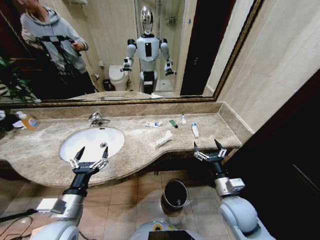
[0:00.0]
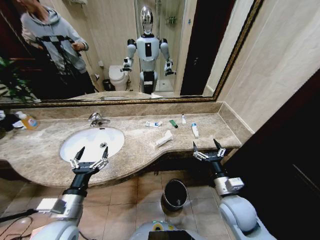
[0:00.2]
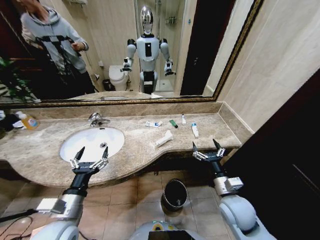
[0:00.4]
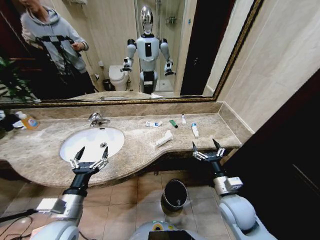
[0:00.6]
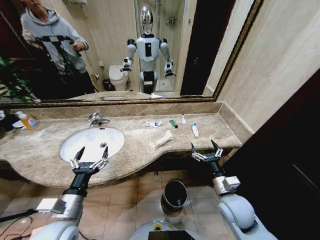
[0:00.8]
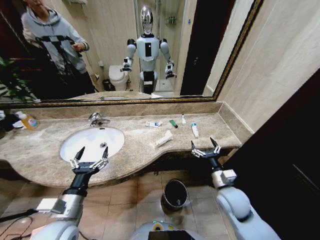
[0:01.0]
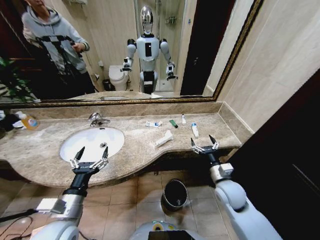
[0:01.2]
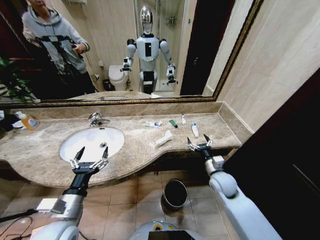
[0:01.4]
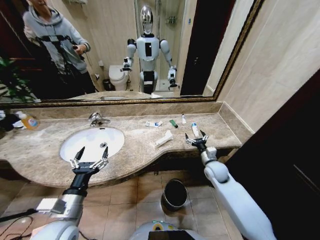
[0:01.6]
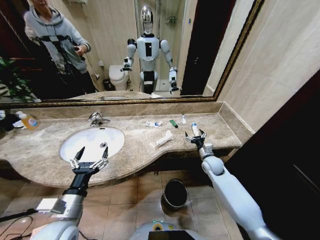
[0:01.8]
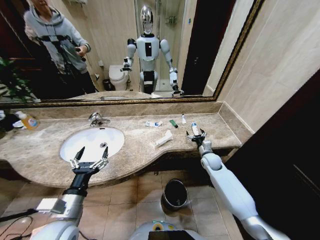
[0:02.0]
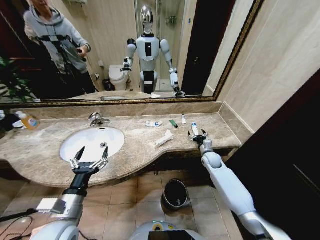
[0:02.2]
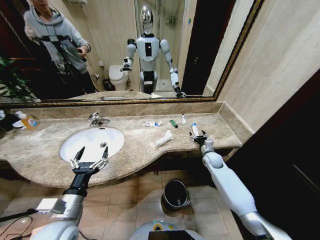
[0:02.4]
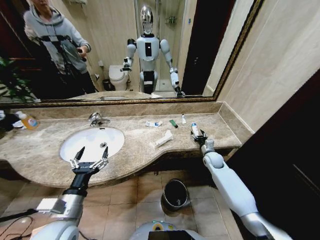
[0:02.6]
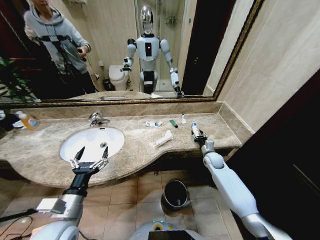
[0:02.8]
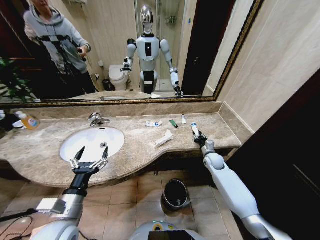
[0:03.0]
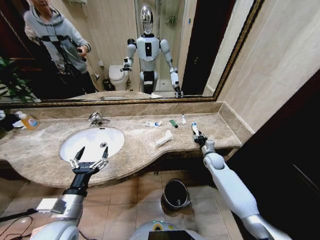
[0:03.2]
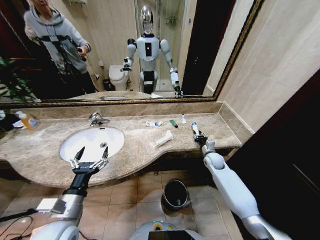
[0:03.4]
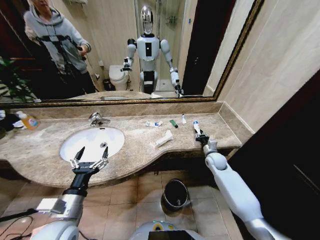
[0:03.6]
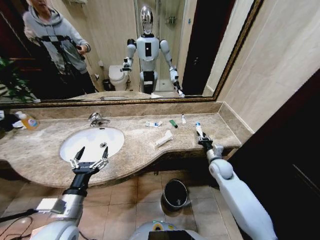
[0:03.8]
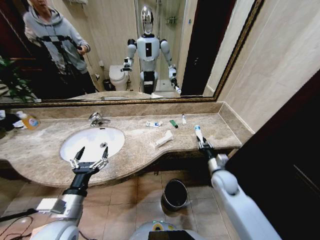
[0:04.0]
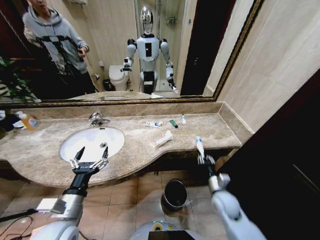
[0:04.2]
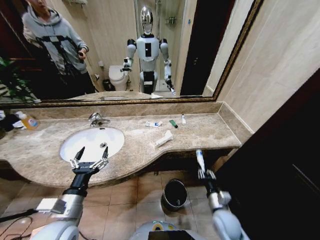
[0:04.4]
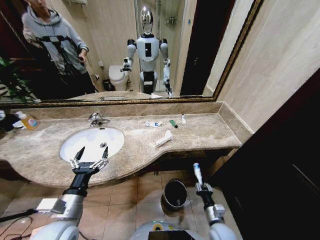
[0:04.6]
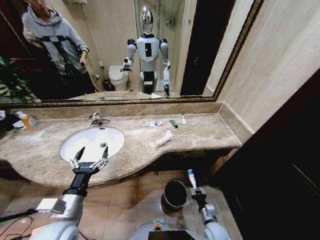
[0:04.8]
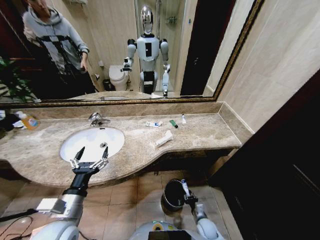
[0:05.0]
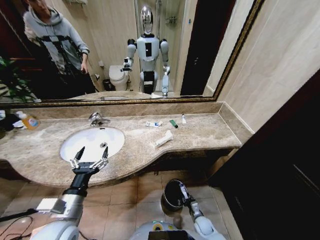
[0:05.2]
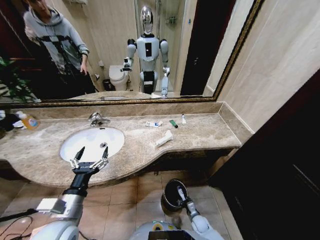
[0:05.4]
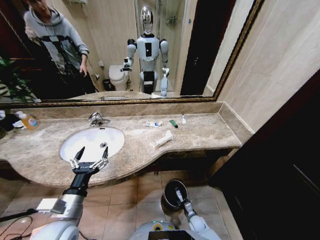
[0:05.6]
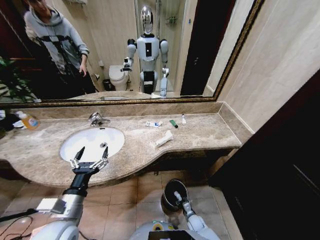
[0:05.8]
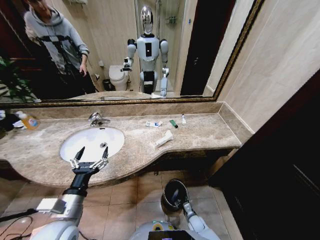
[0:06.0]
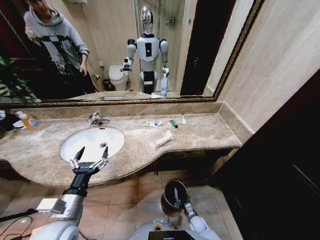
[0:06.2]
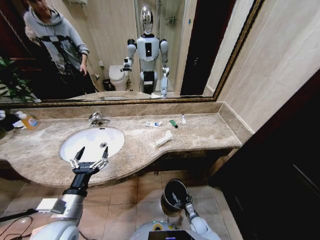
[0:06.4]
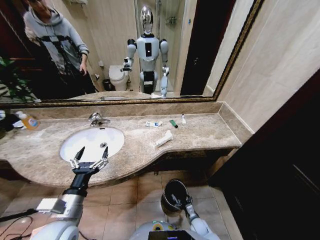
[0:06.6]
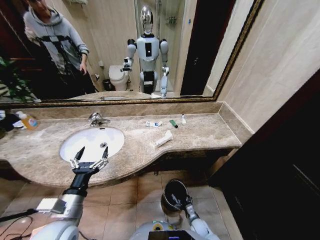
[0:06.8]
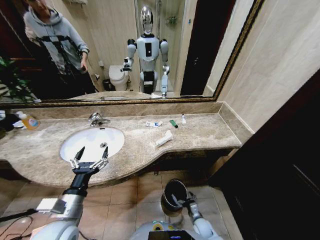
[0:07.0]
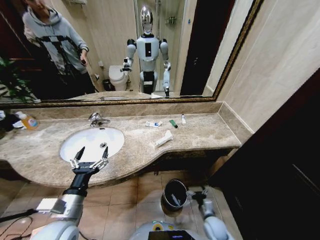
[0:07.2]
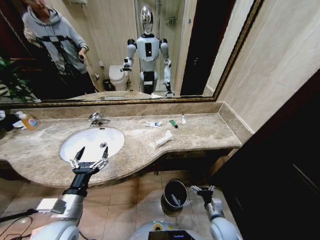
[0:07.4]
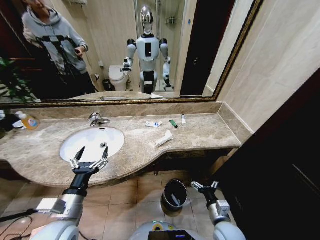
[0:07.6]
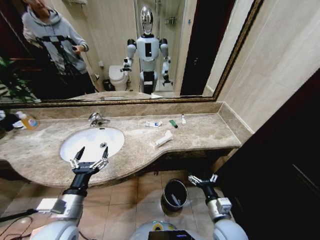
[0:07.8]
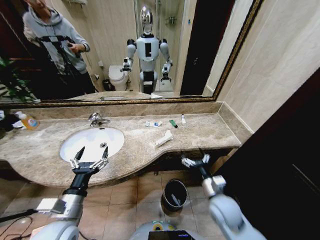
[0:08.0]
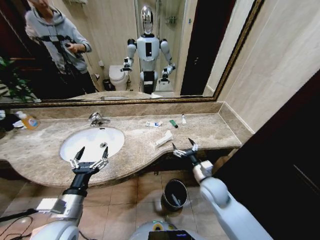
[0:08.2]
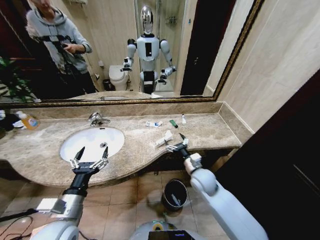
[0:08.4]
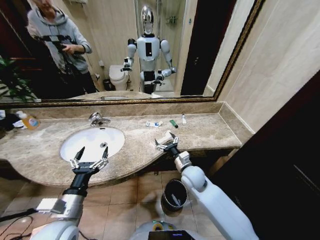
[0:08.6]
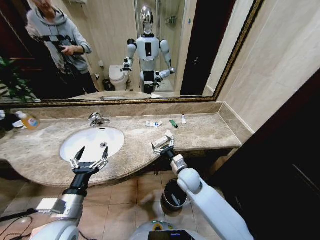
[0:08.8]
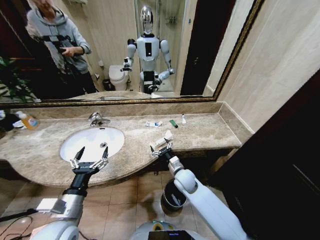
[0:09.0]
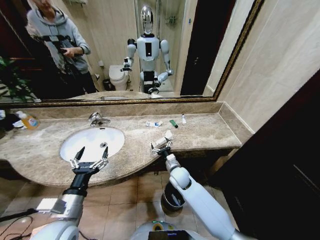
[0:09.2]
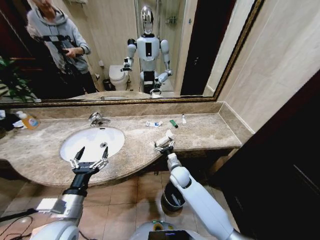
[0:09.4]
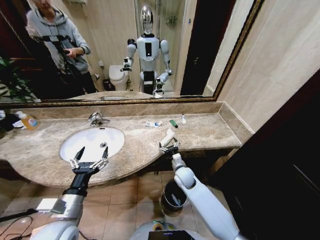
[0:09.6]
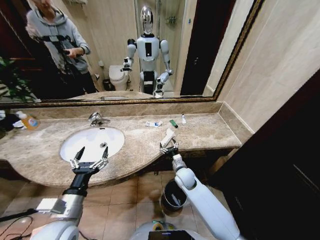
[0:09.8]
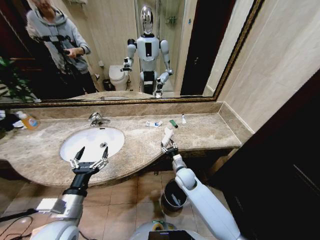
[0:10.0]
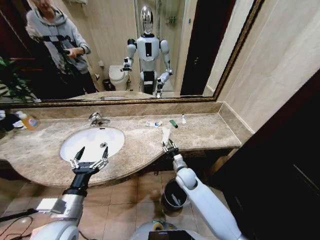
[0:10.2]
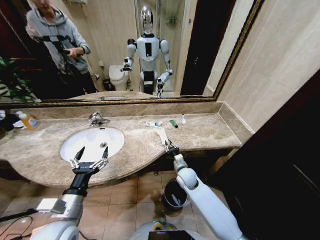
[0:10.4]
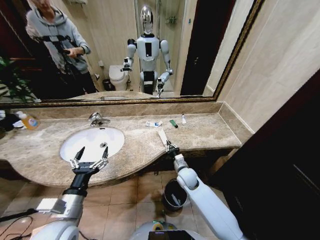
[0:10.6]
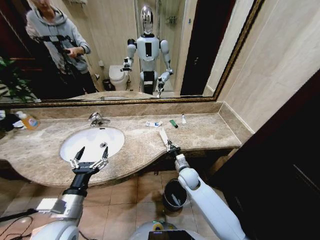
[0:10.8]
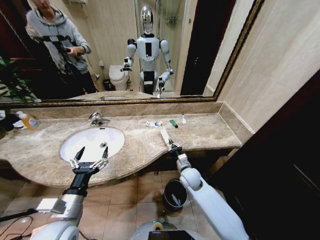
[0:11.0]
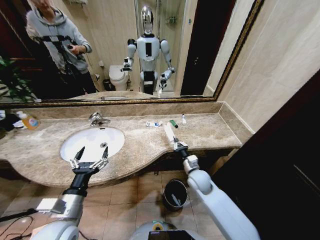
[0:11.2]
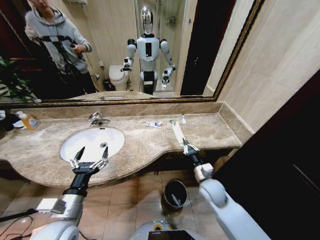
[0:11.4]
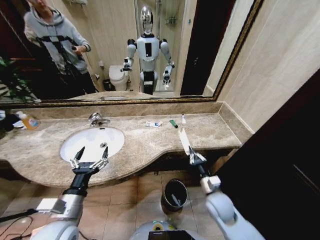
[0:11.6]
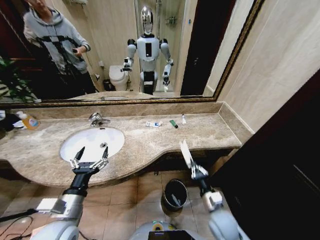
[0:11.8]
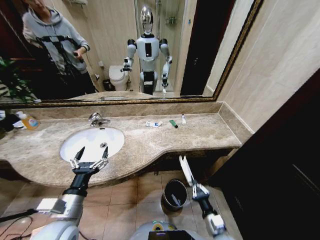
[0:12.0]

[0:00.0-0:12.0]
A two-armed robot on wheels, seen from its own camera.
Task of the whole recording: Pick up the trash from the sink and place it in the trash bin.
0:01.6 to 0:03.0: The right gripper heads forward, covering about 10 cm, and closes its fingers.
0:03.0 to 0:04.4: The right gripper is displaced backward by some 25 cm.
0:04.4 to 0:06.0: The right gripper heads downward, covering approximately 25 cm.
0:06.0 to 0:07.6: The right gripper goes roughly 25 cm upward, and opens up.
0:07.6 to 0:09.0: The right gripper goes roughly 25 cm forward and to the left.
0:09.0 to 0:10.4: The right gripper closes its fingers.
0:10.4 to 0:12.0: The right gripper is displaced backward by roughly 25 cm.

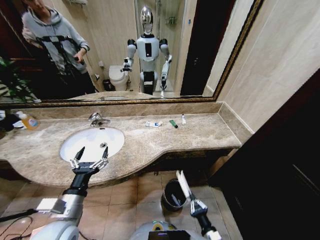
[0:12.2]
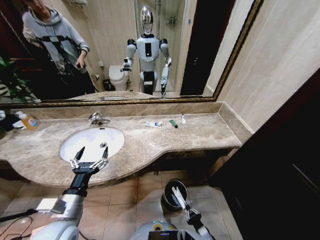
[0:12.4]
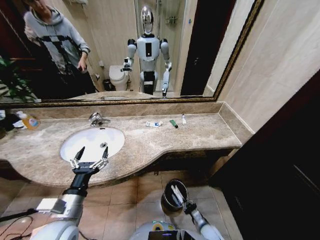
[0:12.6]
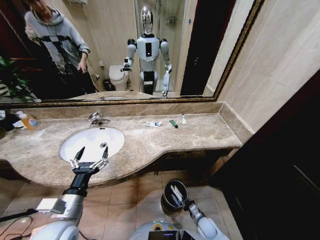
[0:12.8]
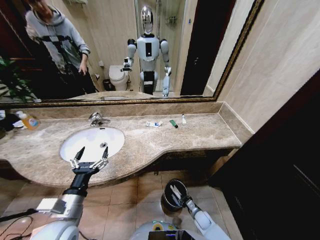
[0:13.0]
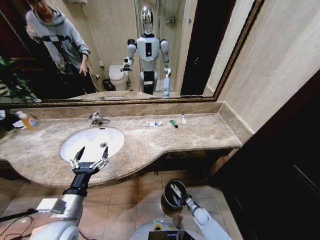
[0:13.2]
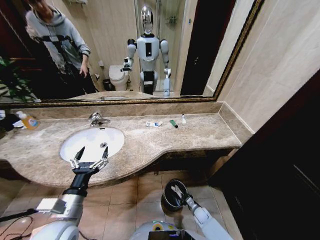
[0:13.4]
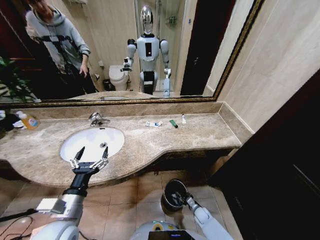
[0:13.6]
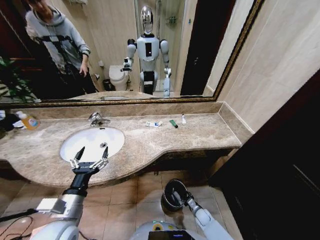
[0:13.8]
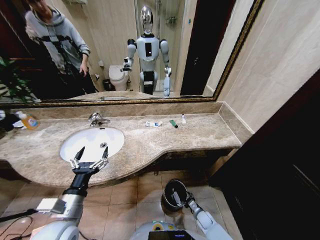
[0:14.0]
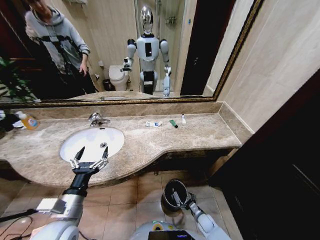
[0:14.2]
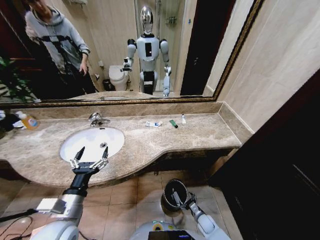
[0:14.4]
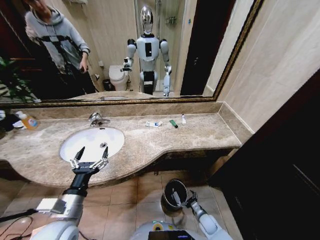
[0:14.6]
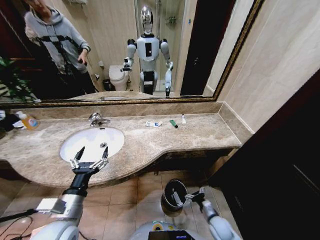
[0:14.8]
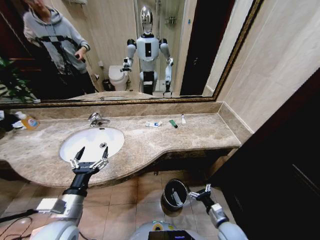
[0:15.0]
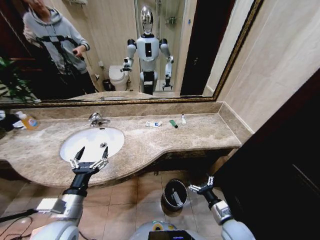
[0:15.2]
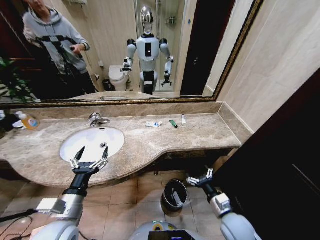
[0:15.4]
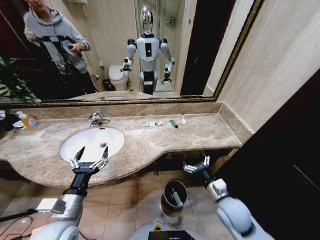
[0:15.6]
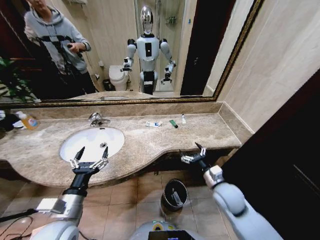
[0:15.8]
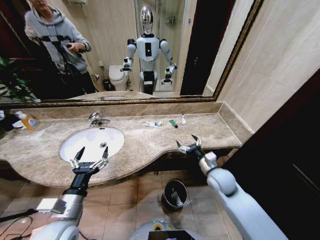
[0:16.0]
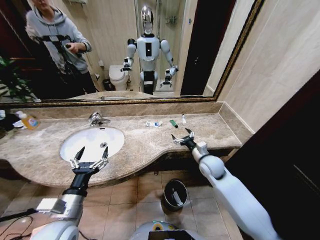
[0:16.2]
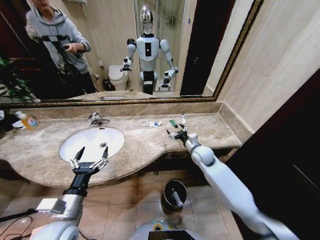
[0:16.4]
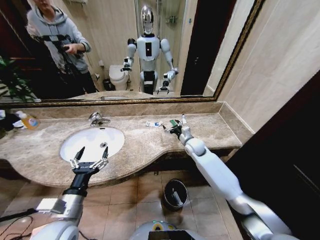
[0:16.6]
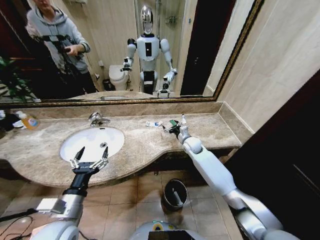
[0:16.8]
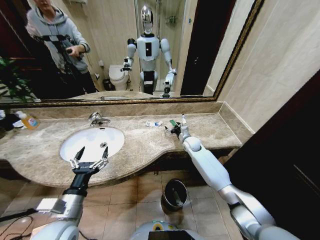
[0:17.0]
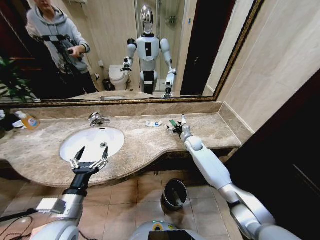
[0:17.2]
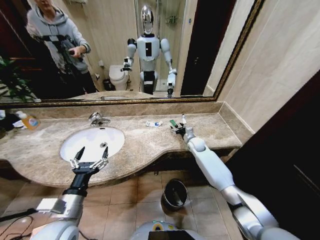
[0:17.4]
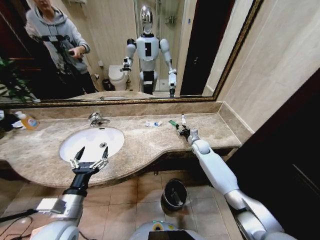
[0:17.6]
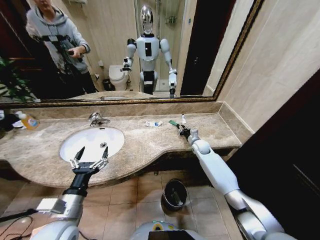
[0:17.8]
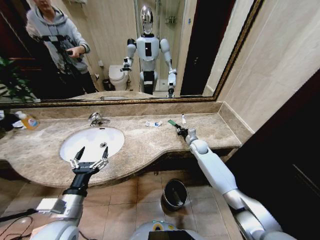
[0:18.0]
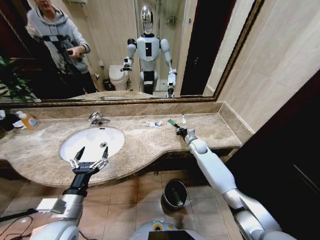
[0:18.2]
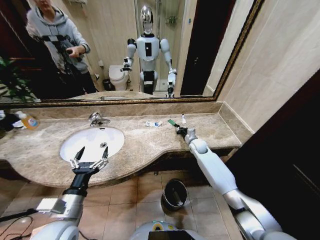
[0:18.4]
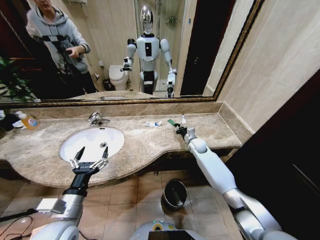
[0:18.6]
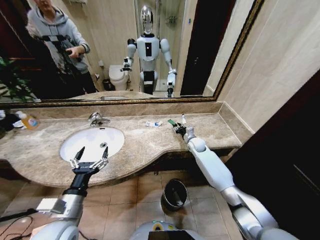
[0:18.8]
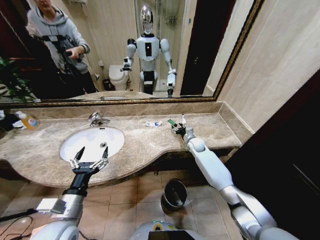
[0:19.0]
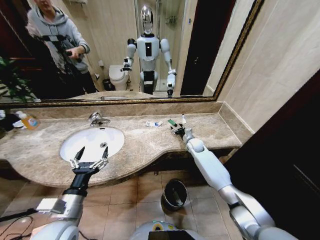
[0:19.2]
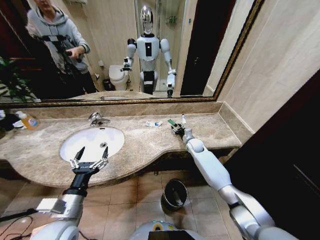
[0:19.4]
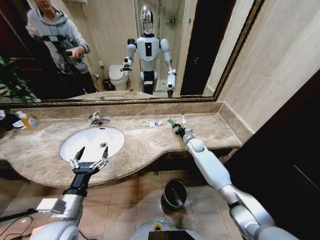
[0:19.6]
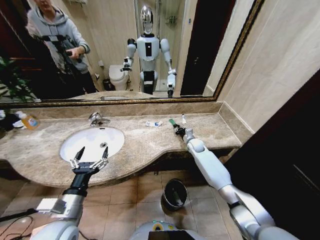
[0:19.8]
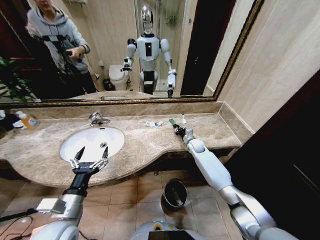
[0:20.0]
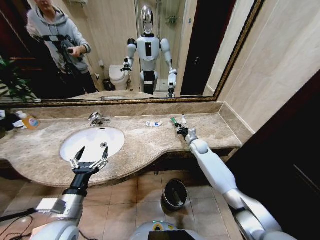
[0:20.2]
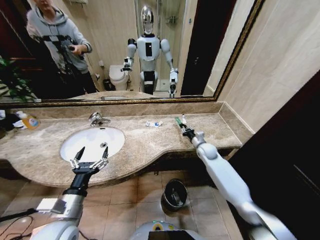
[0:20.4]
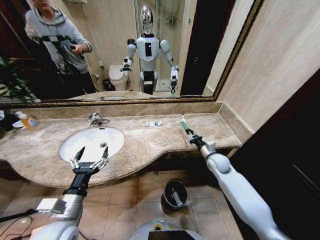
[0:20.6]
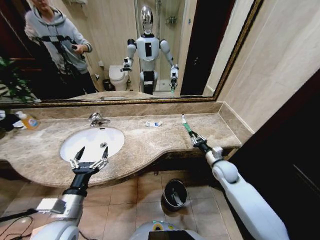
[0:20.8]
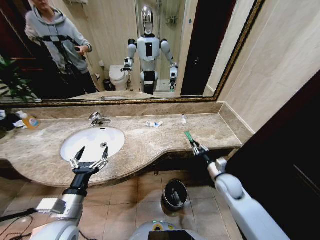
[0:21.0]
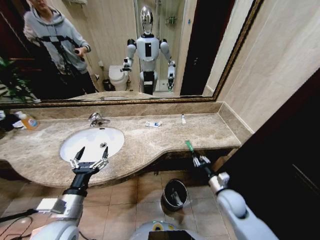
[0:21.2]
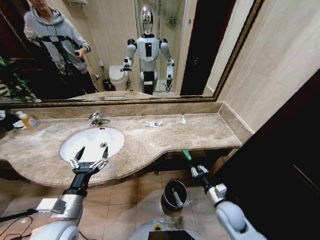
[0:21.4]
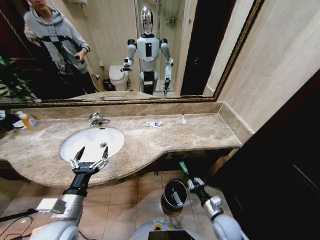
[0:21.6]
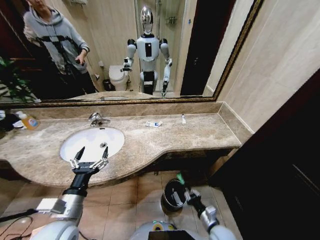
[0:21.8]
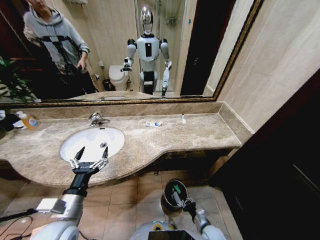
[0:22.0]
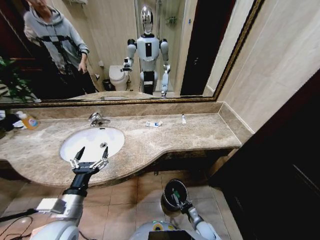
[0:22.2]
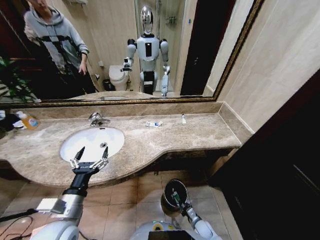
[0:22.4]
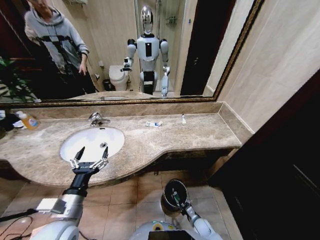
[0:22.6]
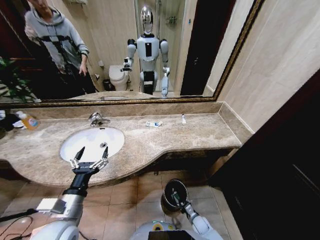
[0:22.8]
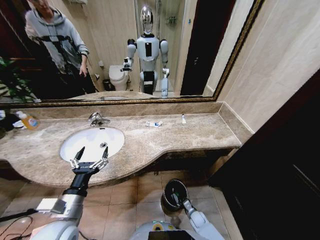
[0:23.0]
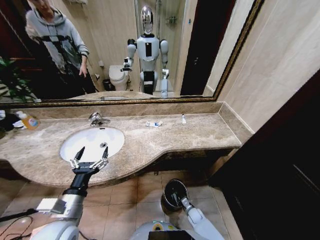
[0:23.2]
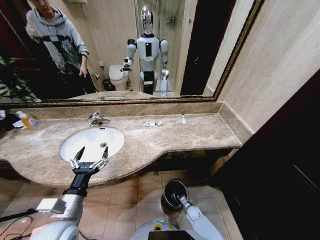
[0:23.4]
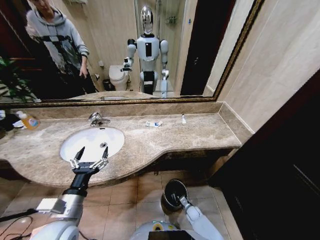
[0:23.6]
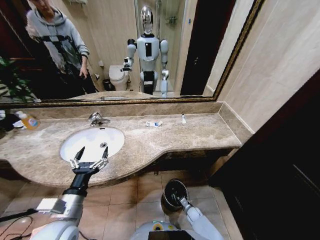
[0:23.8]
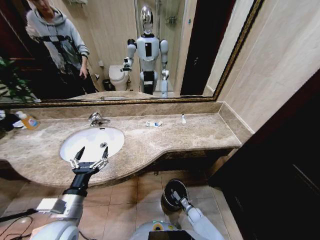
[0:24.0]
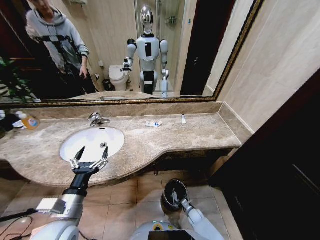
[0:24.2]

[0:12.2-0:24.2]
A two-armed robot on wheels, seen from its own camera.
Task of the whole recording: Pick up the trash from the sink and place it in the trash bin.
0:12.2 to 0:13.8: The right gripper goes some 25 cm downward and forward, and opens its fingers.
0:13.8 to 0:15.2: The right gripper heads upward, covering about 25 cm, and opens its fingers.
0:15.2 to 0:16.6: The right gripper goes some 35 cm forward.
0:16.6 to 0:18.2: The right gripper is displaced downward by about 5 cm, and closes its fingers.
0:18.2 to 0:19.8: The right gripper opens, then closes once more.
0:19.8 to 0:21.2: The right gripper shifts some 30 cm backward.
0:21.2 to 0:22.6: The right gripper goes approximately 25 cm downward.
0:22.6 to 0:24.2: The right gripper heads forward, covering approximately 5 cm, and opens.
